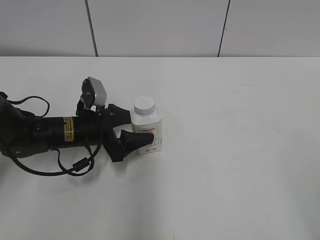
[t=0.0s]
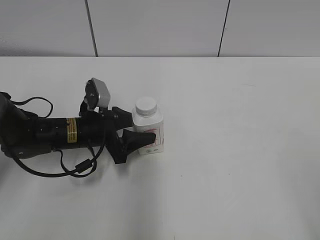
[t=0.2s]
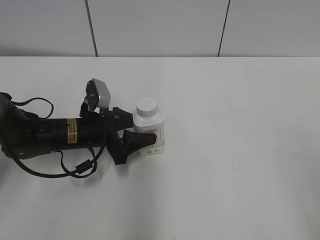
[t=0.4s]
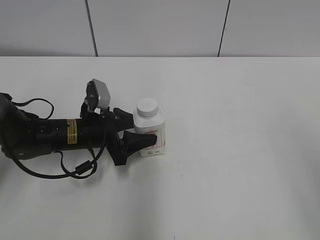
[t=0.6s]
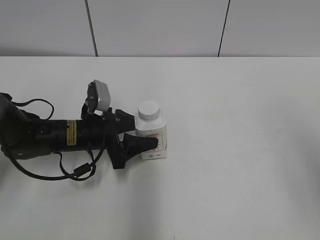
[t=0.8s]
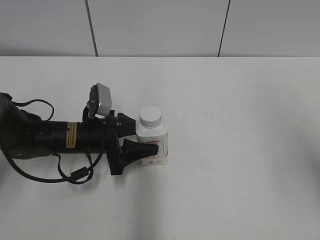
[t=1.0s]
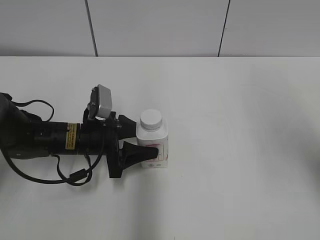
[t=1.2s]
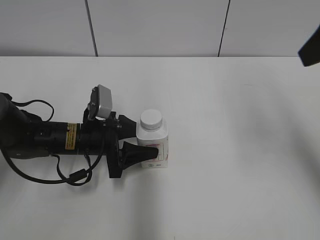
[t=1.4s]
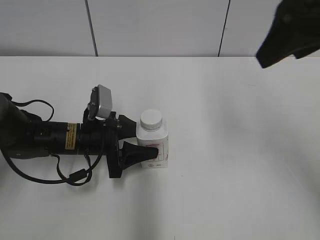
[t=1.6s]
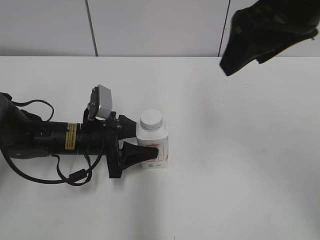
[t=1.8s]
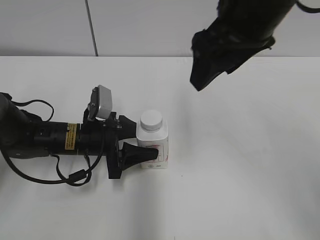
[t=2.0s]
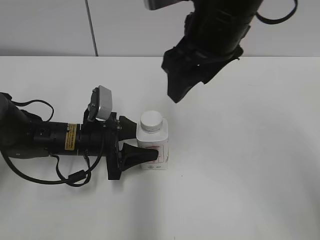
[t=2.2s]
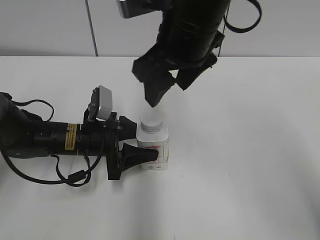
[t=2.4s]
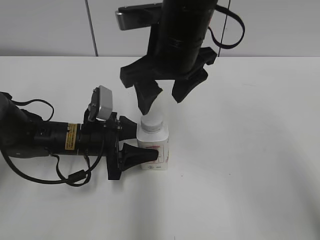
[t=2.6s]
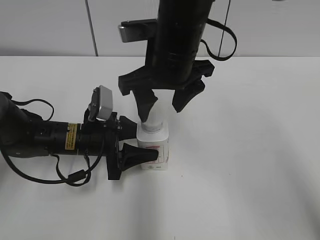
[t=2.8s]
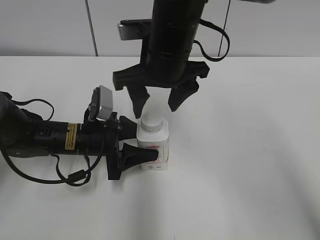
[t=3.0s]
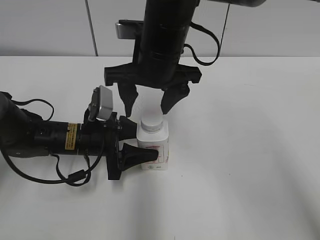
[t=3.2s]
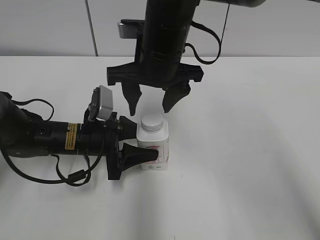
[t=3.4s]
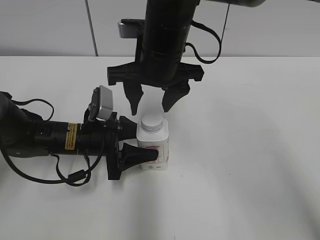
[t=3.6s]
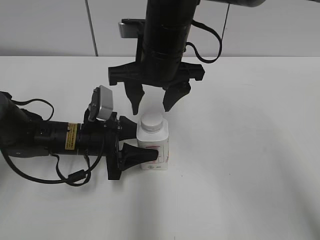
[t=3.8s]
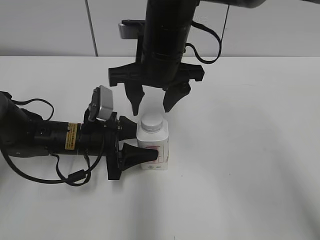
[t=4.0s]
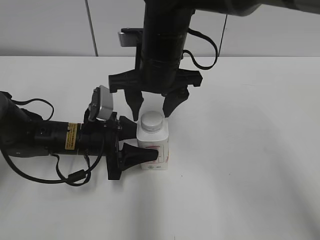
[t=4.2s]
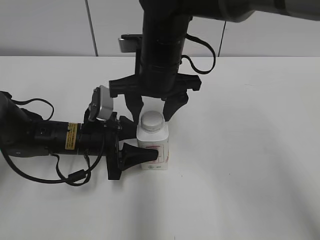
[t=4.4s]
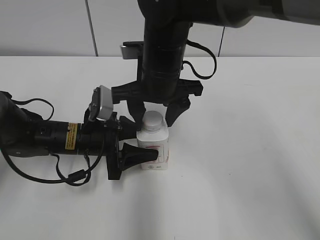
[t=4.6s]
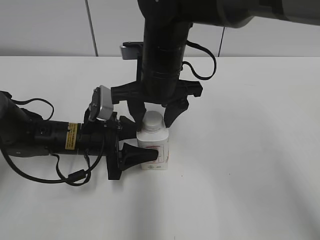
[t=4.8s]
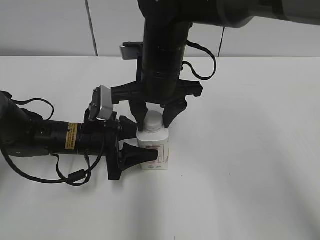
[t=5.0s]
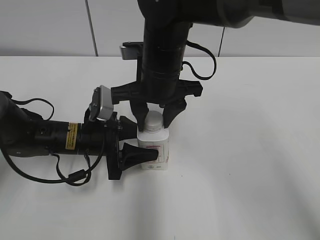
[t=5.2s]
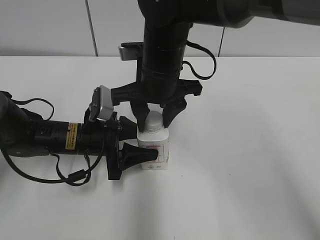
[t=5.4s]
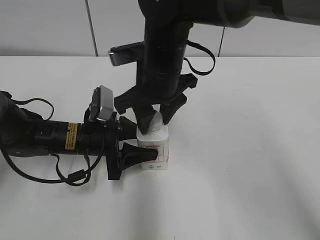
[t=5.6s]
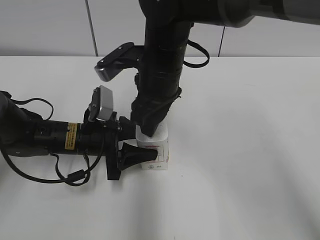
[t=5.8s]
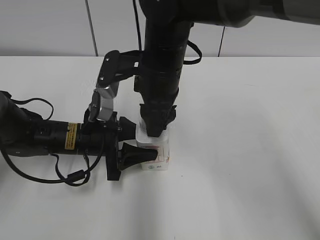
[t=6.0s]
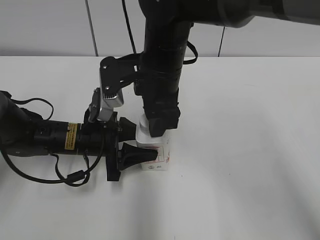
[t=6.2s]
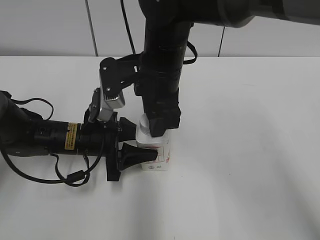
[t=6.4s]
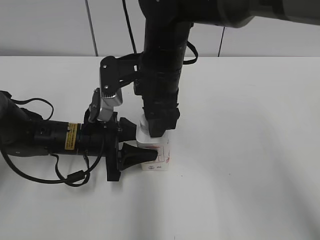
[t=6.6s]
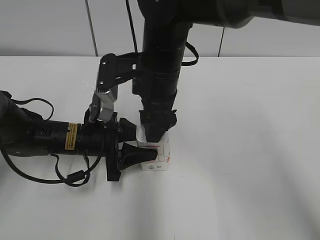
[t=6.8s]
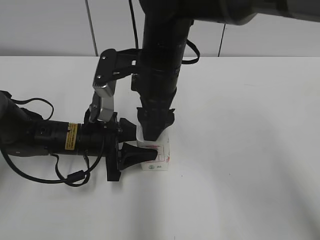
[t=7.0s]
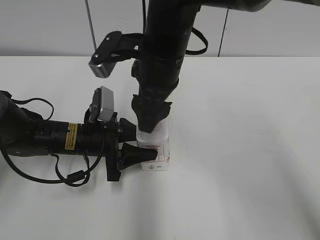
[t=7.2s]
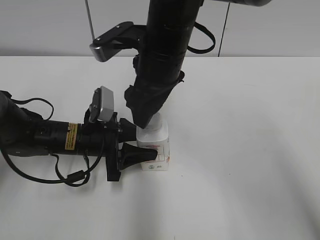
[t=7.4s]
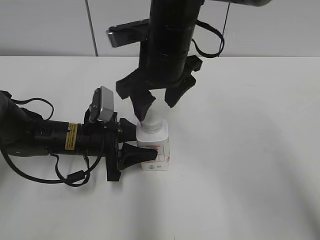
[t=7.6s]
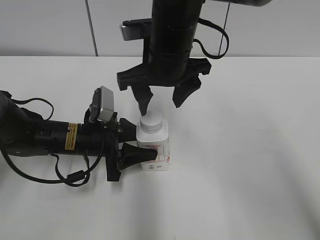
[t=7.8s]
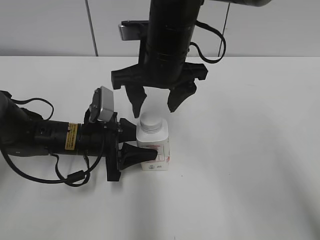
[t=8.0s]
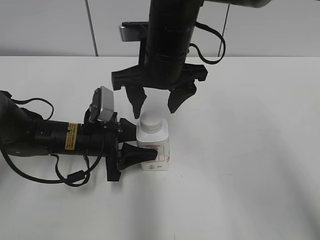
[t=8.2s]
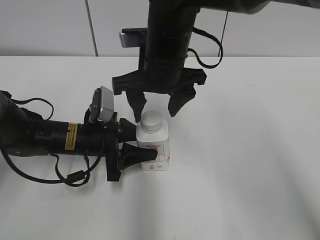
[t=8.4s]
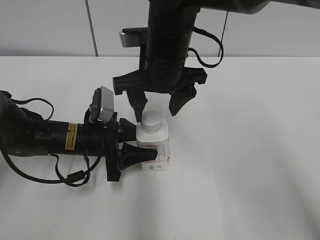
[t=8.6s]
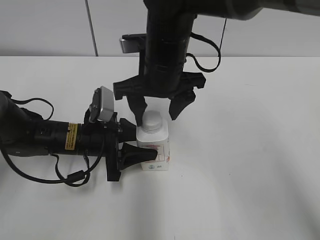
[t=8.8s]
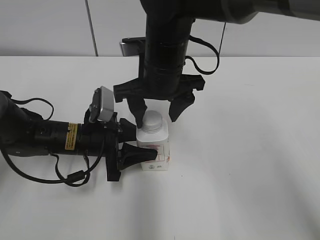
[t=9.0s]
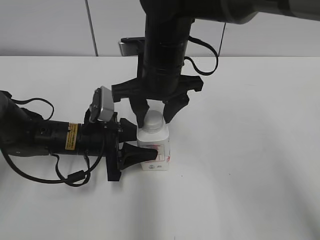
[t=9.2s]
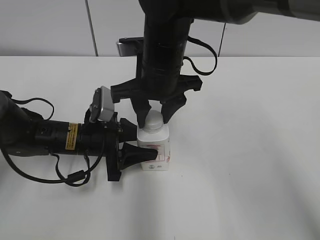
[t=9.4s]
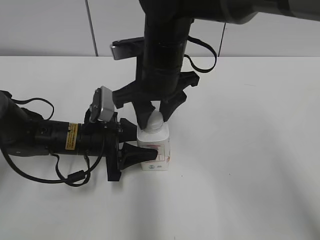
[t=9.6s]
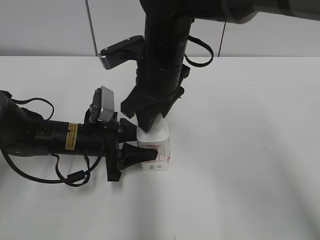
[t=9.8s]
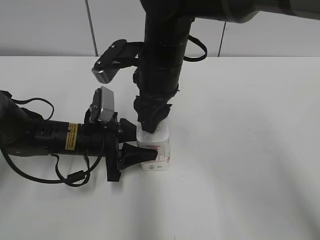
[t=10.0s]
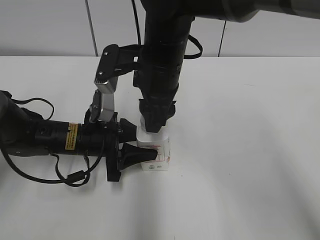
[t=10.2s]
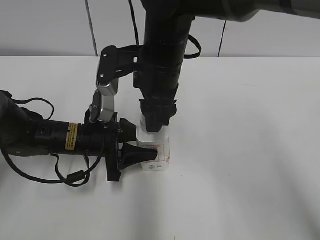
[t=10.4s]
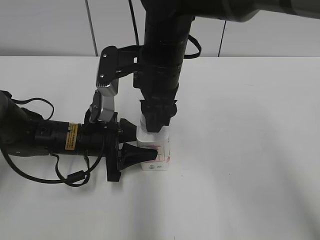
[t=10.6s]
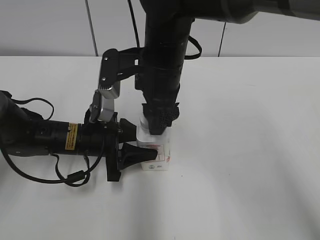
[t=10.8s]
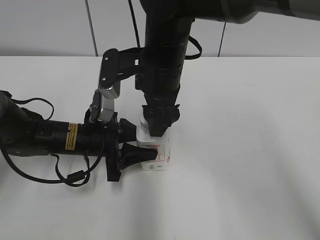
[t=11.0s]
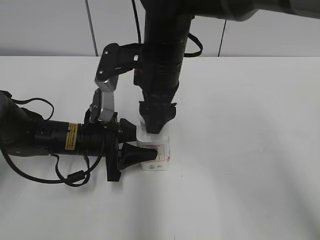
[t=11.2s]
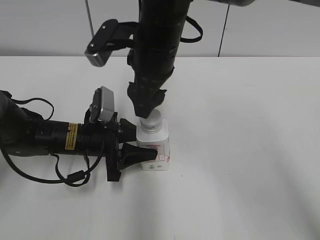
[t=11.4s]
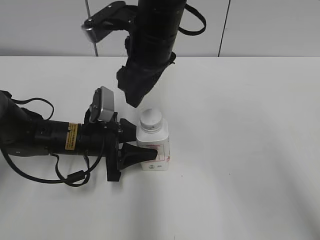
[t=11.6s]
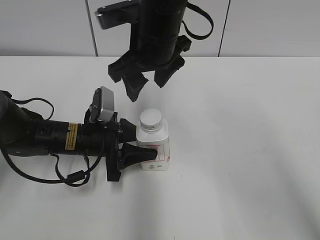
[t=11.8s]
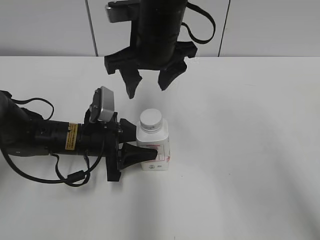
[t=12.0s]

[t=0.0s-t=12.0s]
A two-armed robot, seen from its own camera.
t=0.0s to t=1.6s: The right gripper moves forward, roughly 25 cm.
t=1.6s to t=3.0s: The right gripper heads to the left and downward, covering approximately 20 cm.
t=3.0s to t=4.4s: There are only small adjustments of the grippers.
t=4.4s to t=6.0s: The right gripper closes up.
t=6.0s to t=7.6s: The right gripper opens its fingers.
t=9.0s to t=10.4s: The right gripper closes up.
t=10.4s to t=12.0s: The right gripper opens up.

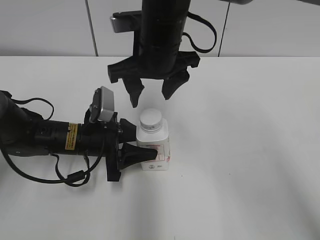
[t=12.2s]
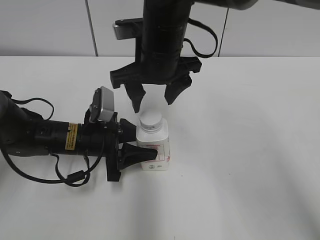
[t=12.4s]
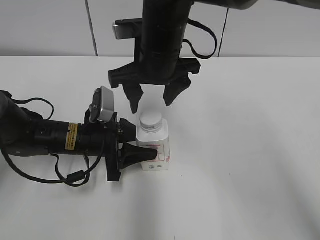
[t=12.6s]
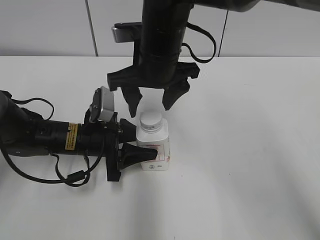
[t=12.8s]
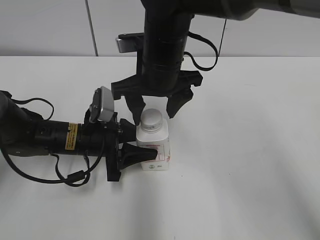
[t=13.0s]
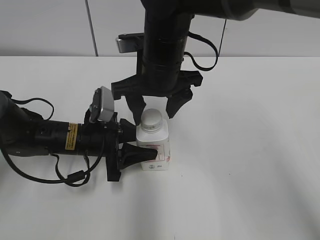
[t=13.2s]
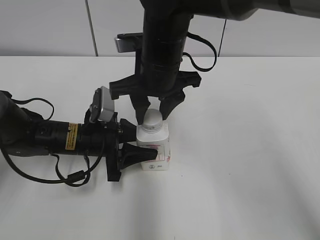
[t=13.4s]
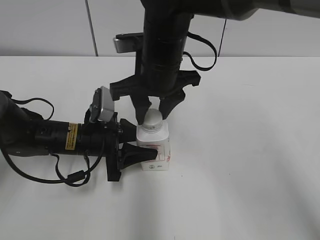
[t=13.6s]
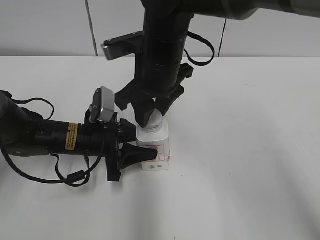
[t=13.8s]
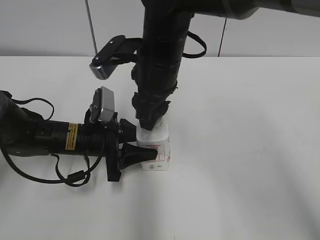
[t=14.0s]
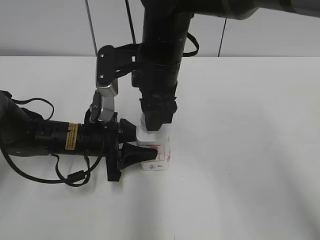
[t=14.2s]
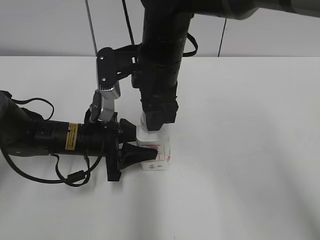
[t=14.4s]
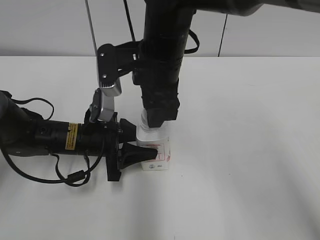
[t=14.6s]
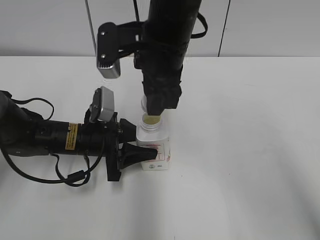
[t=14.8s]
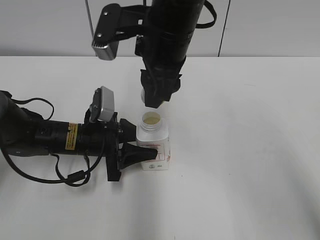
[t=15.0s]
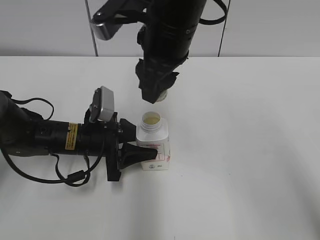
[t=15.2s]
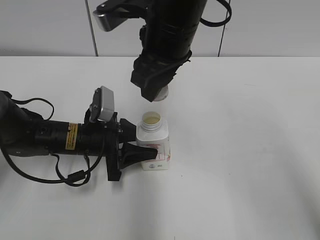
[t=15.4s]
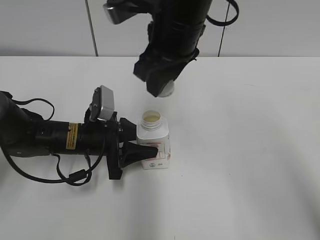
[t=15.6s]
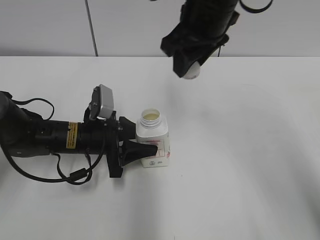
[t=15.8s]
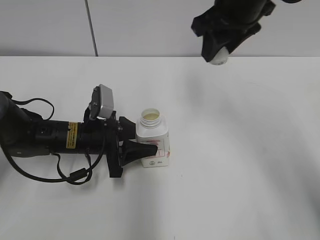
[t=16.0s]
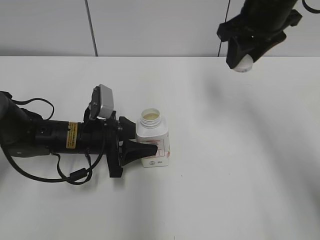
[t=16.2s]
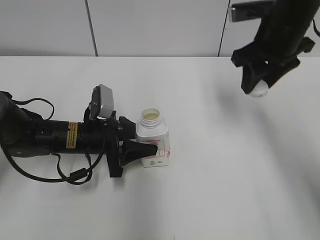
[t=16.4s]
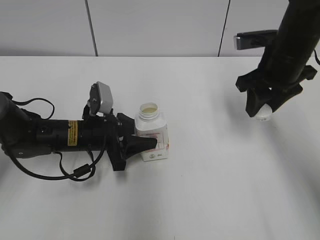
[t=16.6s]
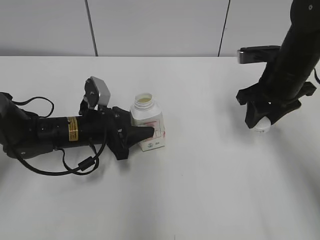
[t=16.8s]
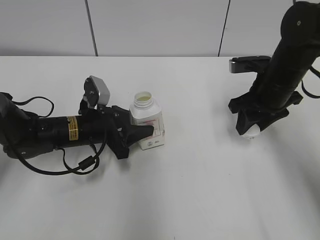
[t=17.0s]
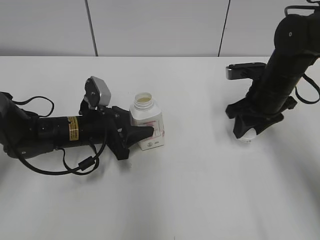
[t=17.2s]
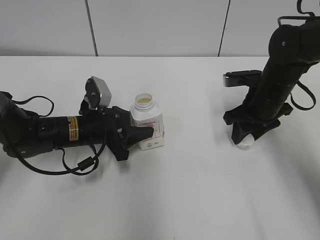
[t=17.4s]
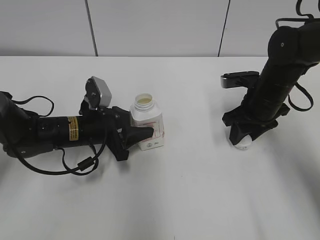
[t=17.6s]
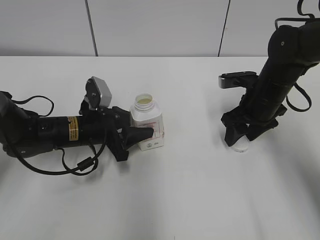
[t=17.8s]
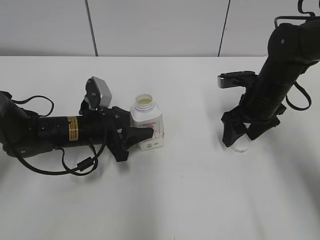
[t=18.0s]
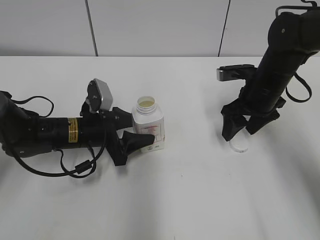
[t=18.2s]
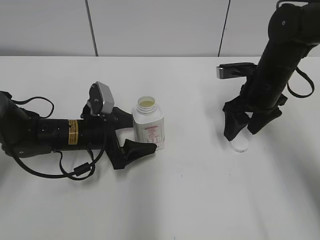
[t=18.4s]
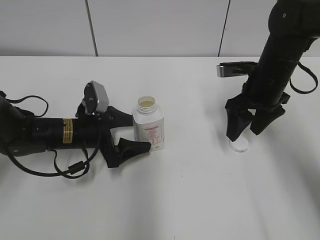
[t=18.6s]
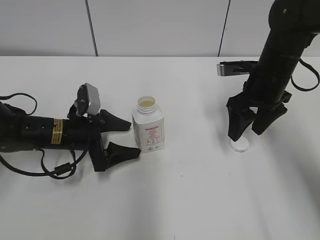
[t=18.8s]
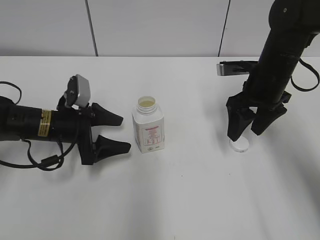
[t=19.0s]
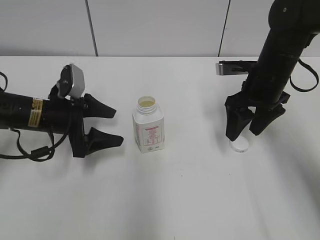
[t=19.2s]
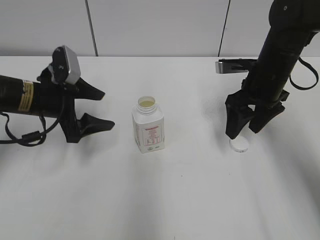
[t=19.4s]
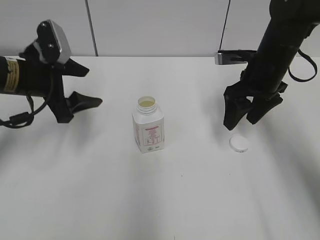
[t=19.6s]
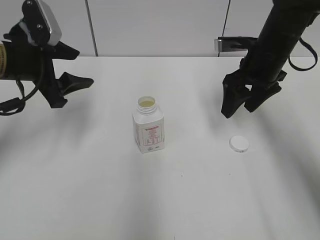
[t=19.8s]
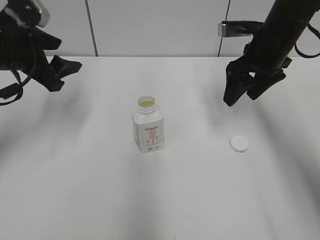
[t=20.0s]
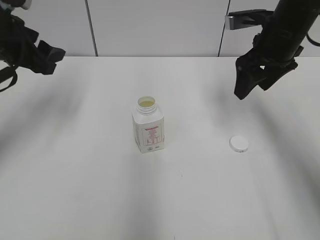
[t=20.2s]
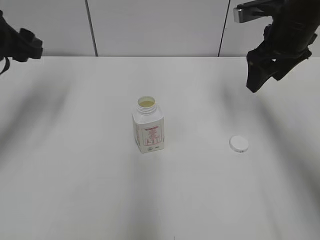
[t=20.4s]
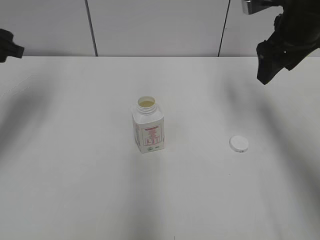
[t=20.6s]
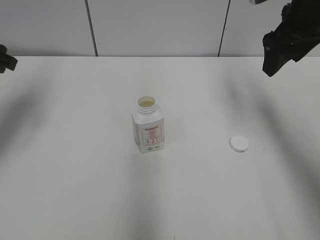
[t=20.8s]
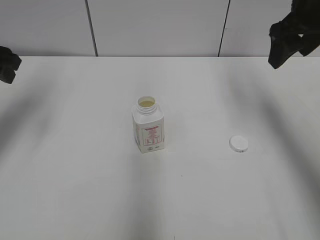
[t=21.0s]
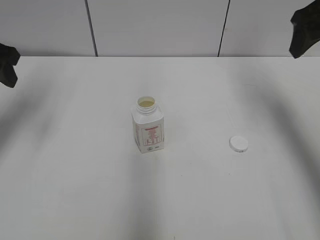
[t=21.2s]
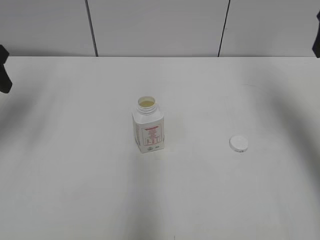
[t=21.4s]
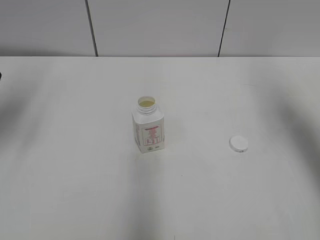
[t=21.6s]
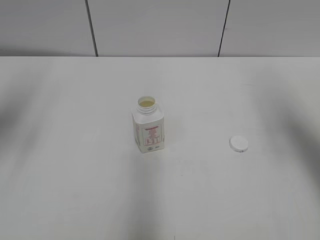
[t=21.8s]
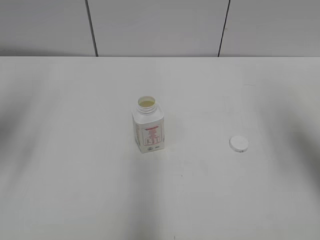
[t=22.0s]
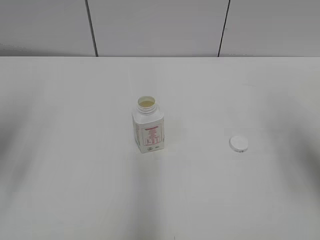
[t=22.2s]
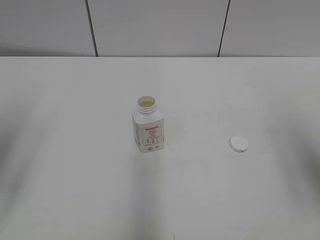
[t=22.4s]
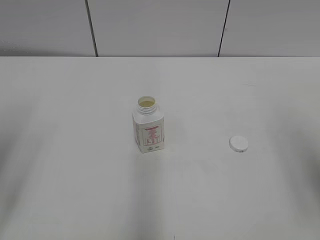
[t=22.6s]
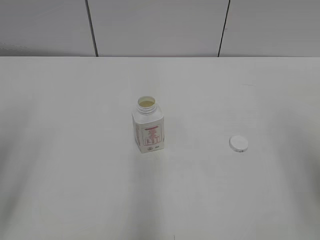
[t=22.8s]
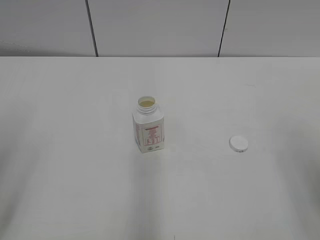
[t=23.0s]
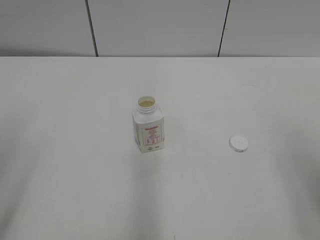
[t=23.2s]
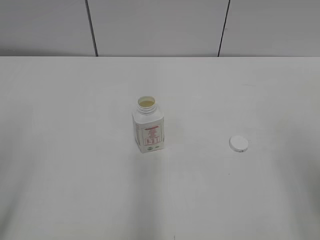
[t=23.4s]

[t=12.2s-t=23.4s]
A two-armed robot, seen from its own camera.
Step, t=12.2s to t=14.6s: Unscrew the bottle cap with the right gripper while holding the bottle with the left gripper.
Step, t=14.8s to t=18.0s: Place the bottle cap on the table with the right gripper.
Step, t=18.2s to t=18.4s: Place the bottle on the table with the left gripper.
t=12.2s to t=13.8s: The right gripper closes its fingers.
t=13.8s to t=15.4s: The right gripper goes about 5 cm upward.
t=15.4s to t=17.0s: The right gripper heads to the right and downward, covering about 20 cm.
t=17.0s to t=18.6s: The left gripper opens its fingers, while the right gripper opens.
t=18.6s to t=20.2s: The right gripper goes some 10 cm upward. Meanwhile the left gripper is displaced upward and to the left by about 20 cm.
t=20.2s to t=21.8s: The left gripper shifts roughly 10 cm to the left, backward and upward; the right gripper travels backward, to the right and upward by about 15 cm.
t=21.8s to t=23.4s: The two grippers go roughly 20 cm backward.
